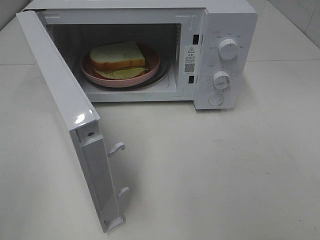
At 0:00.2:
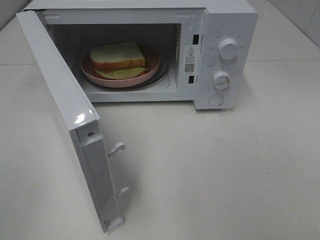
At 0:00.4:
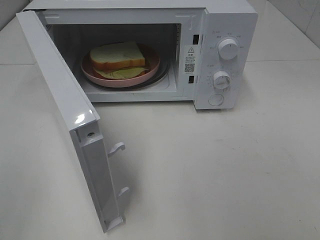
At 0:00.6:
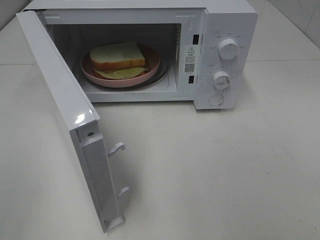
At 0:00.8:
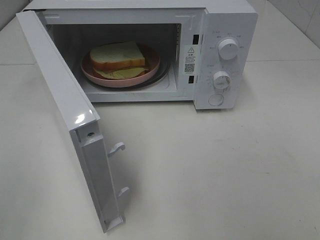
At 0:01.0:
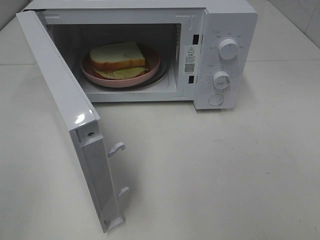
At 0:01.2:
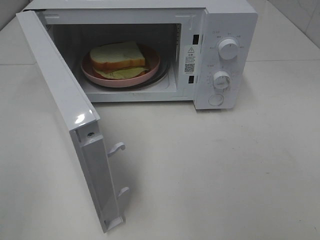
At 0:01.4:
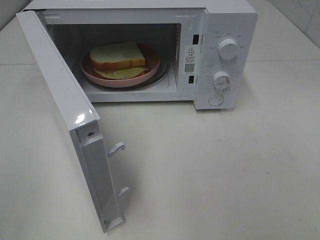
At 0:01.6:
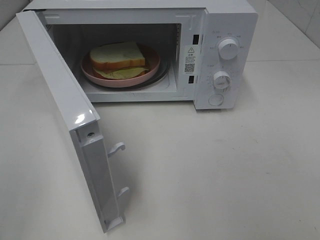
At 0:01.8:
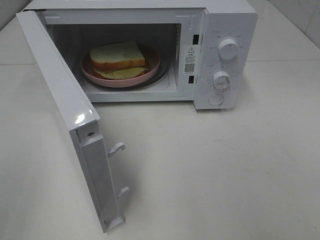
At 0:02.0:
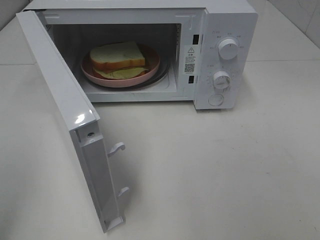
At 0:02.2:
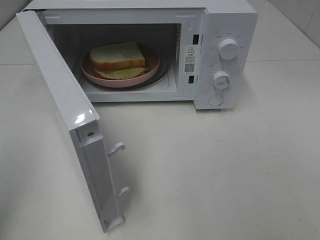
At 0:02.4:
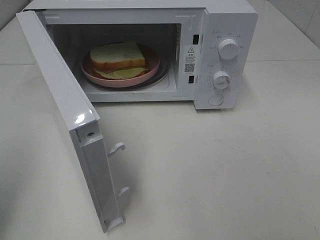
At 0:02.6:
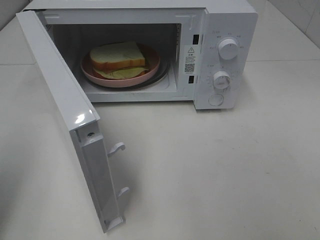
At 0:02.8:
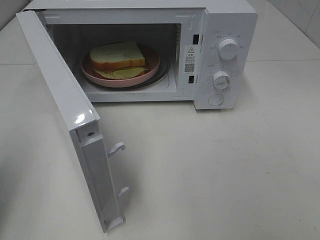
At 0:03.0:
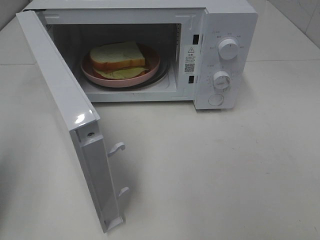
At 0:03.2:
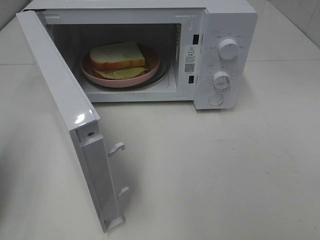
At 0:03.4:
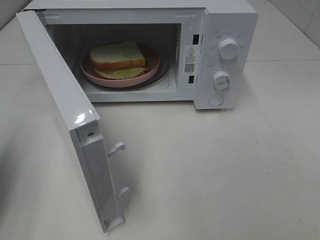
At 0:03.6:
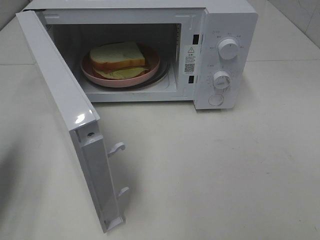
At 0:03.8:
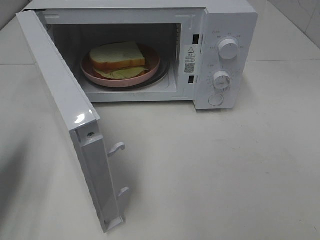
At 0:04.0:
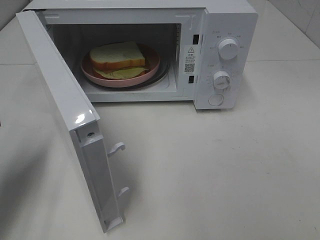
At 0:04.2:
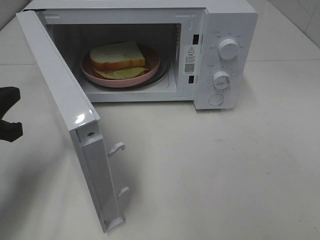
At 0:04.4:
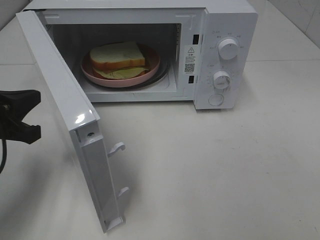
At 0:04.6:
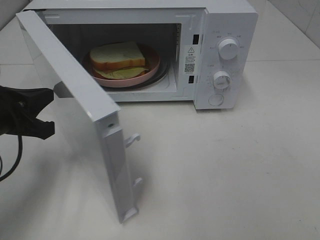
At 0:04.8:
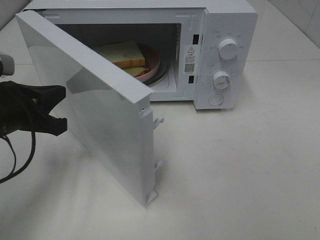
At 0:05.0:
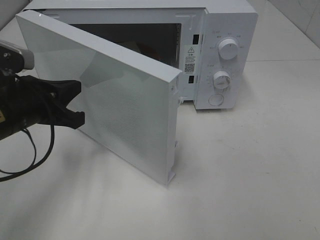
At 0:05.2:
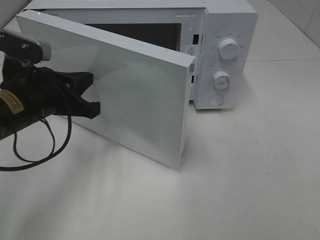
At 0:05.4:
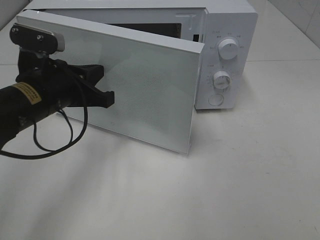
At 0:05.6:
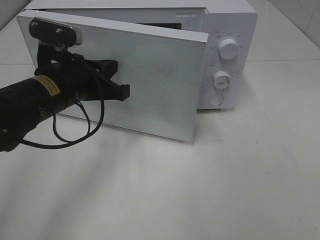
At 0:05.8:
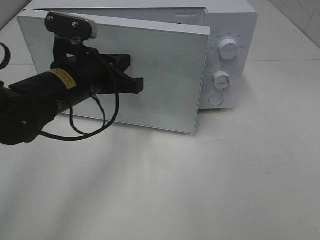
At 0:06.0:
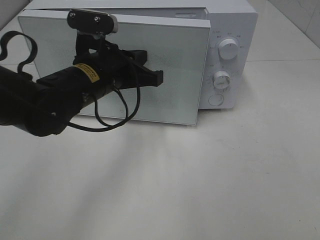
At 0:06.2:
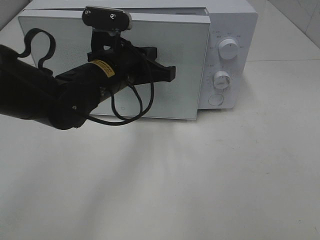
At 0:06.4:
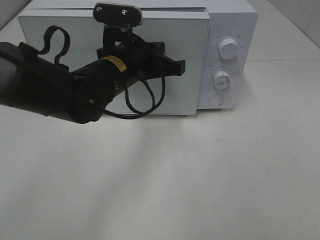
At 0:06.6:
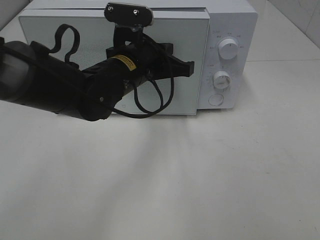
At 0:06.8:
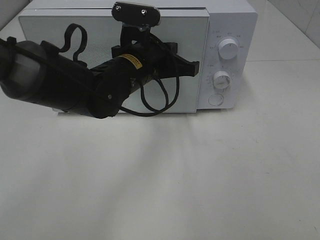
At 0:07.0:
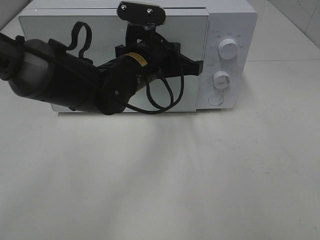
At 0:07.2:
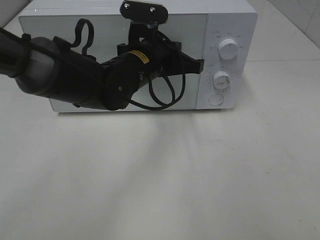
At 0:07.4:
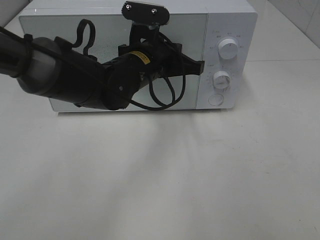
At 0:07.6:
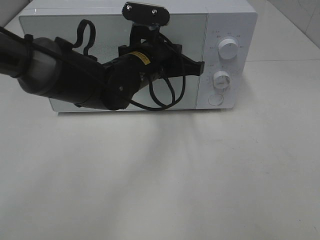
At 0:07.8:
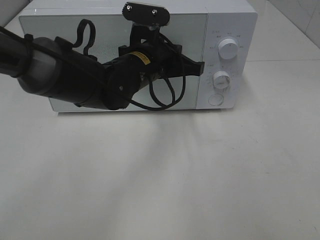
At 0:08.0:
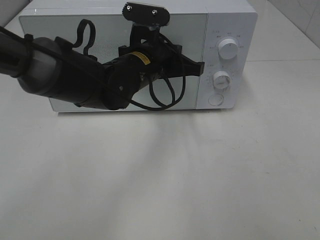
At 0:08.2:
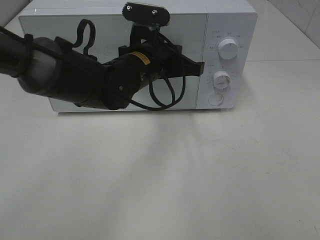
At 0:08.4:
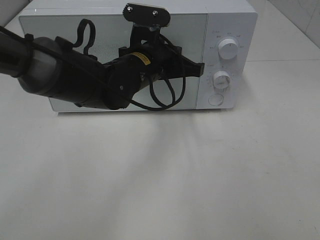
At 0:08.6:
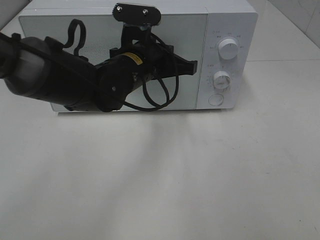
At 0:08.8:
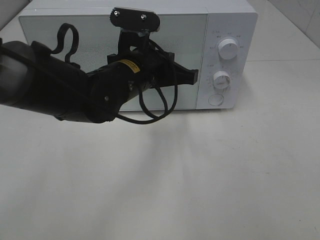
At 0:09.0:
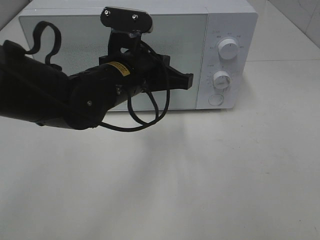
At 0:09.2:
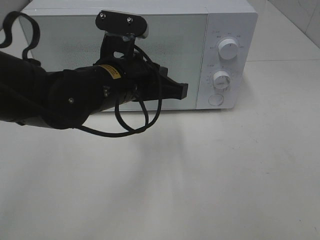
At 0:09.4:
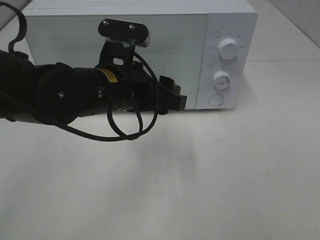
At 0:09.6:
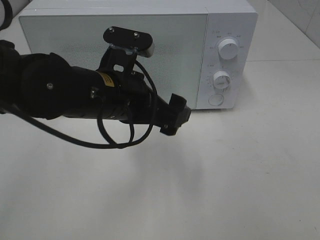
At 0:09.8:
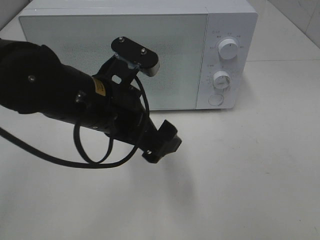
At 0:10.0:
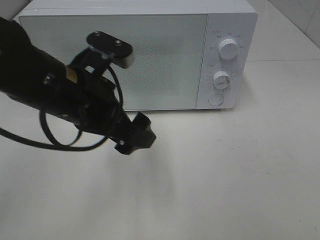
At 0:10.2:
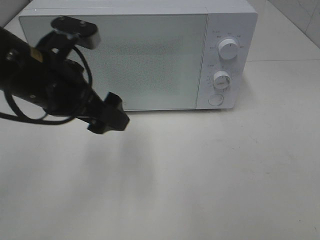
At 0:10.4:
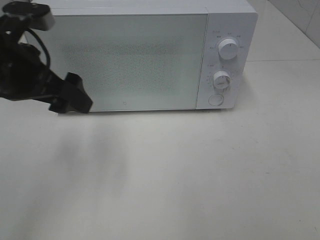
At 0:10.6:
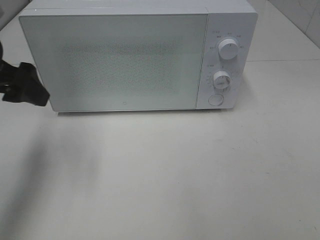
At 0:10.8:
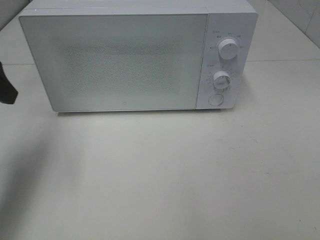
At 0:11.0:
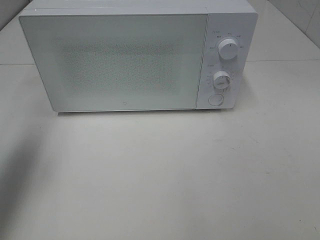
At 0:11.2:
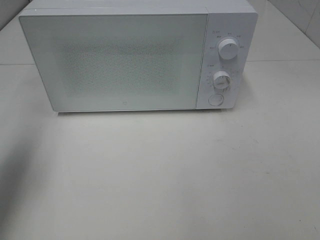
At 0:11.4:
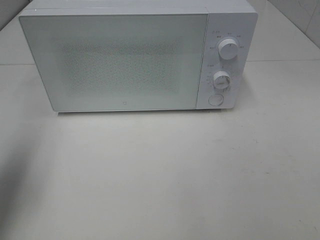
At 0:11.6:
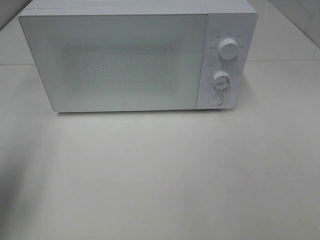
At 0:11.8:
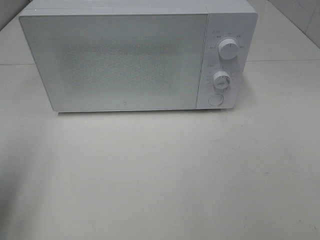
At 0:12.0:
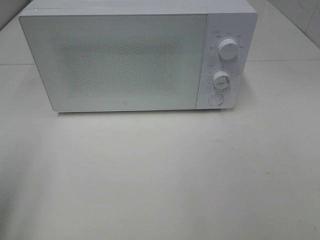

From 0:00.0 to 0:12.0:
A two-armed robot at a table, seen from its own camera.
Task of the whole recording: Heat Sandwich.
Step, from 0:00.0 to 0:09.0: Left hand: close the microwave door.
From 0:00.0 to 0:01.6: The two grippers keep their place.
From 0:01.6 to 0:03.0: The left gripper shifts some 15 cm forward, and closes up.
From 0:03.0 to 0:04.4: The left gripper travels forward, to the right and downward by some 15 cm.
From 0:04.4 to 0:06.0: The left gripper travels to the right and forward by roughly 20 cm.
From 0:06.0 to 0:07.6: The left gripper heads to the right, covering approximately 5 cm.
From 0:07.6 to 0:09.0: The left gripper heads backward, covering roughly 5 cm.
From 0:09.0 to 0:10.4: The left gripper is displaced to the left and upward by roughly 15 cm, and opens.
From 0:10.4 to 0:12.0: The left gripper goes some 20 cm backward and to the left.

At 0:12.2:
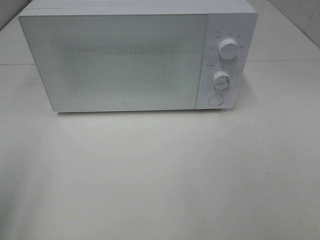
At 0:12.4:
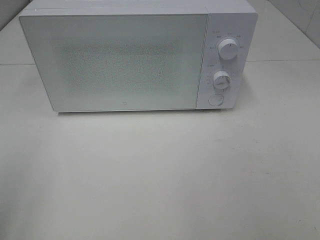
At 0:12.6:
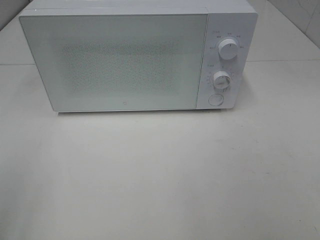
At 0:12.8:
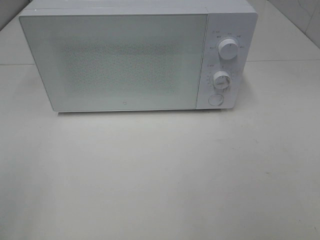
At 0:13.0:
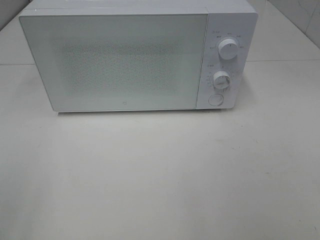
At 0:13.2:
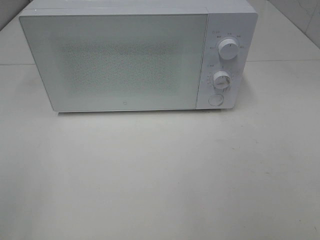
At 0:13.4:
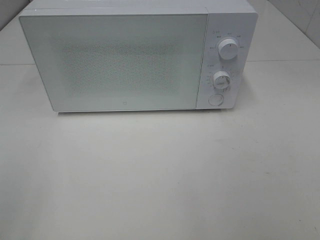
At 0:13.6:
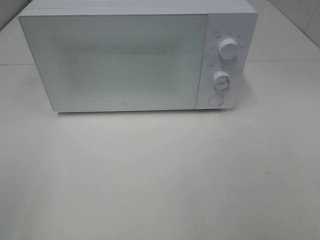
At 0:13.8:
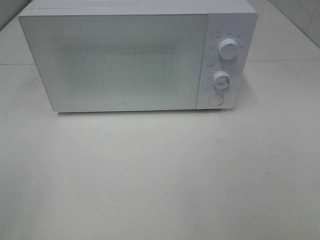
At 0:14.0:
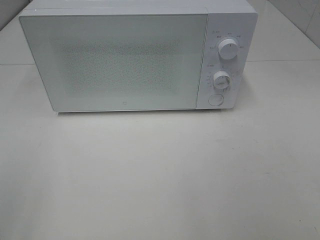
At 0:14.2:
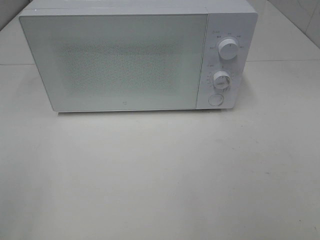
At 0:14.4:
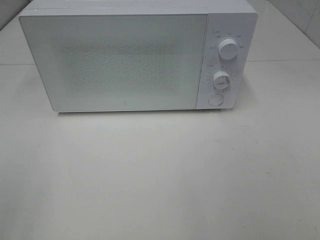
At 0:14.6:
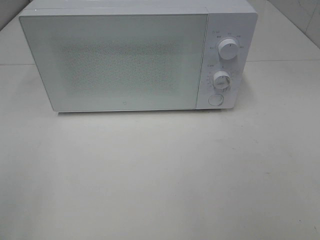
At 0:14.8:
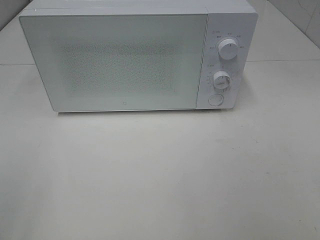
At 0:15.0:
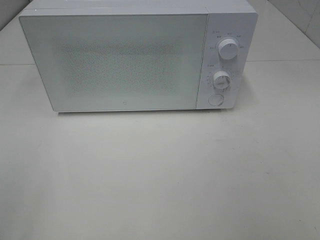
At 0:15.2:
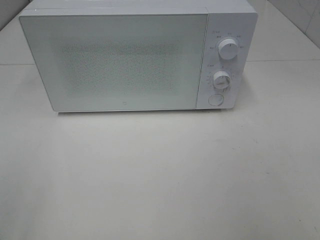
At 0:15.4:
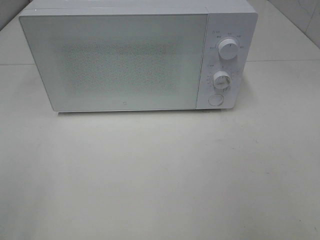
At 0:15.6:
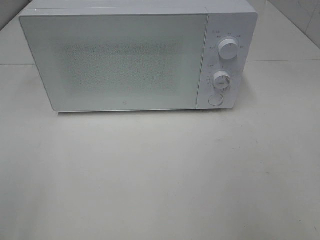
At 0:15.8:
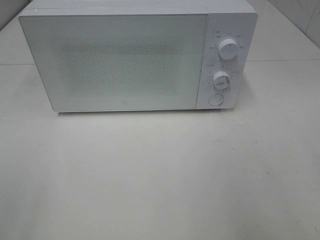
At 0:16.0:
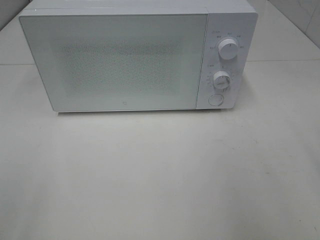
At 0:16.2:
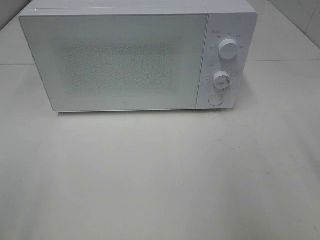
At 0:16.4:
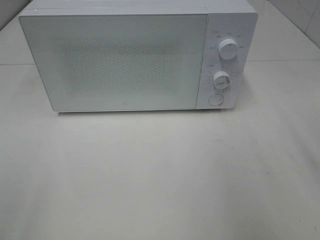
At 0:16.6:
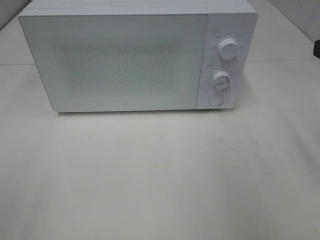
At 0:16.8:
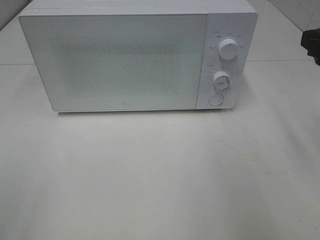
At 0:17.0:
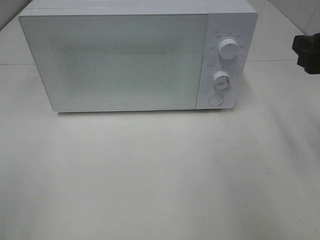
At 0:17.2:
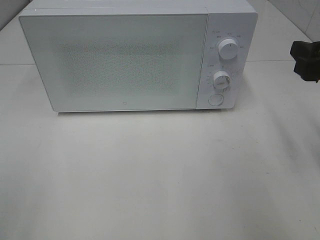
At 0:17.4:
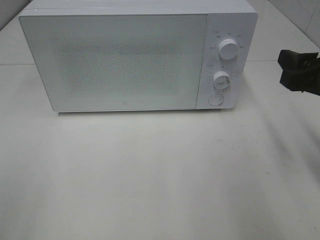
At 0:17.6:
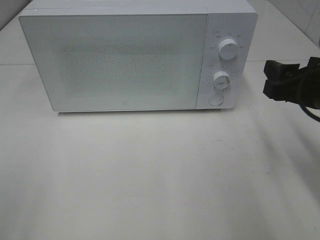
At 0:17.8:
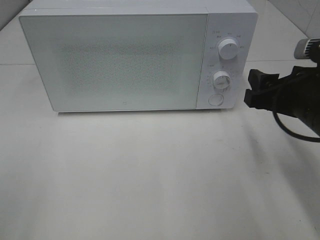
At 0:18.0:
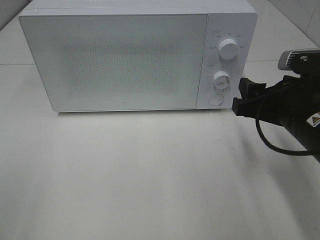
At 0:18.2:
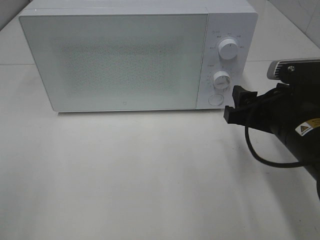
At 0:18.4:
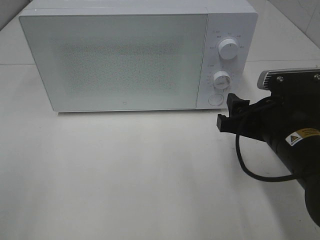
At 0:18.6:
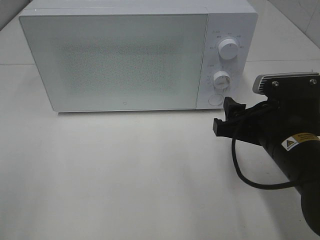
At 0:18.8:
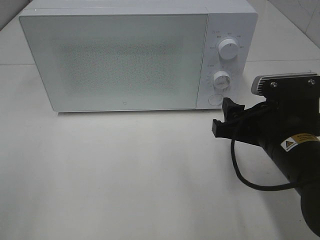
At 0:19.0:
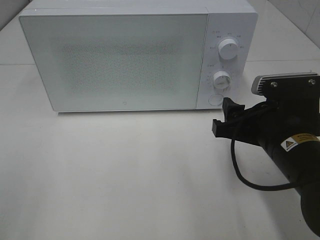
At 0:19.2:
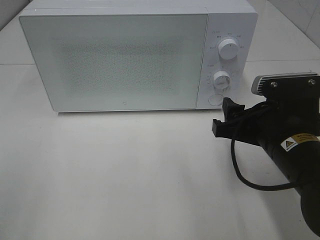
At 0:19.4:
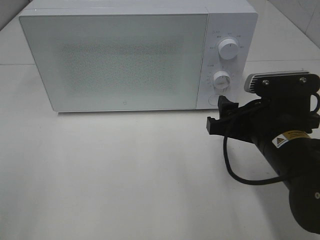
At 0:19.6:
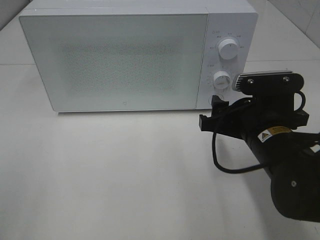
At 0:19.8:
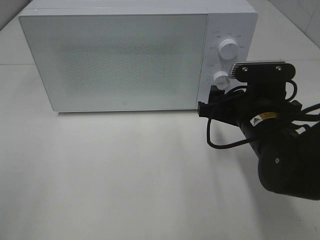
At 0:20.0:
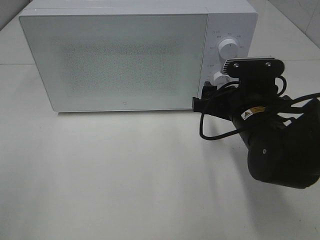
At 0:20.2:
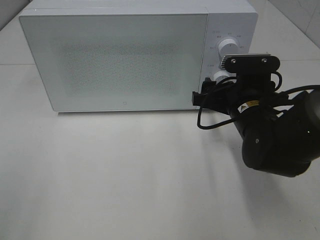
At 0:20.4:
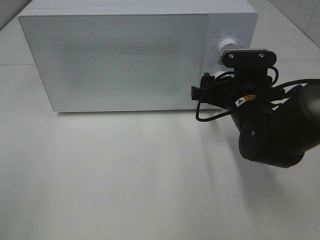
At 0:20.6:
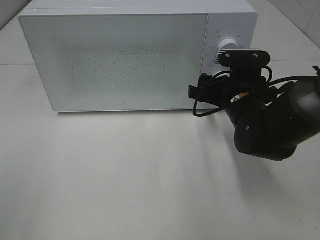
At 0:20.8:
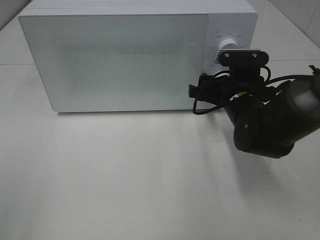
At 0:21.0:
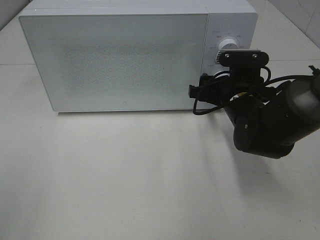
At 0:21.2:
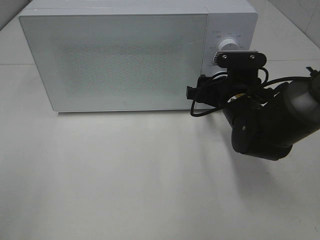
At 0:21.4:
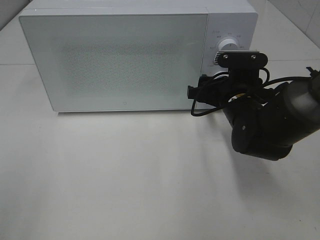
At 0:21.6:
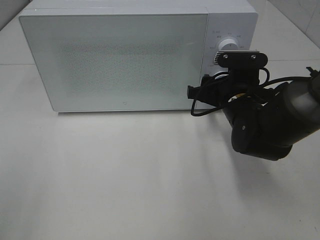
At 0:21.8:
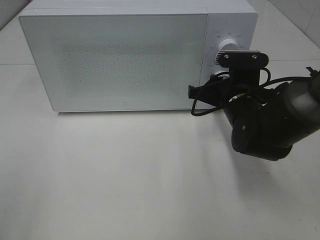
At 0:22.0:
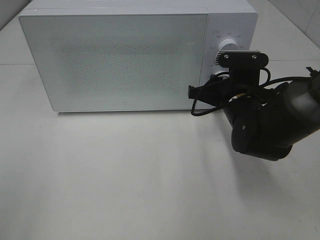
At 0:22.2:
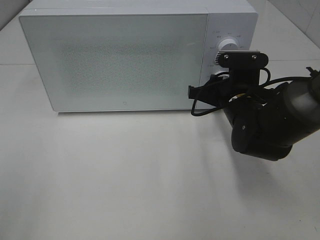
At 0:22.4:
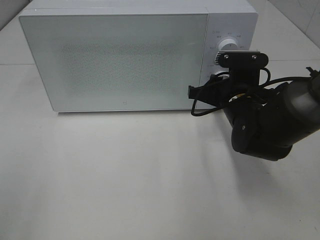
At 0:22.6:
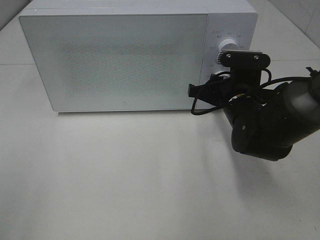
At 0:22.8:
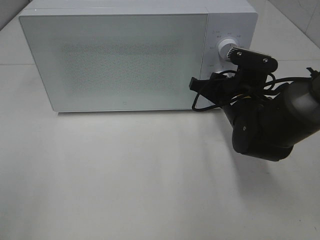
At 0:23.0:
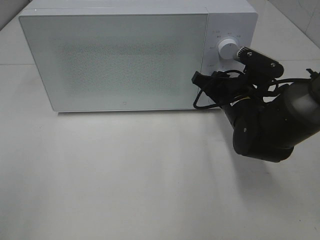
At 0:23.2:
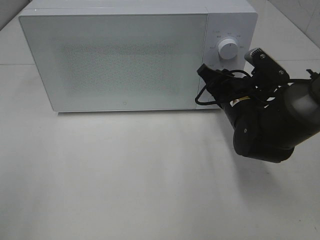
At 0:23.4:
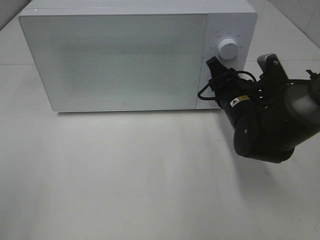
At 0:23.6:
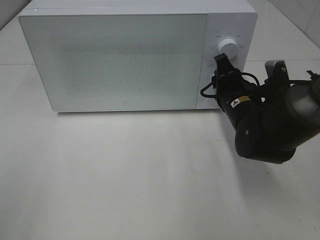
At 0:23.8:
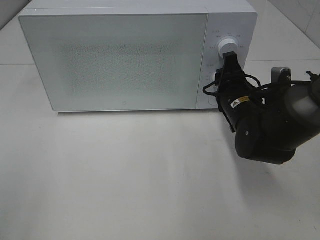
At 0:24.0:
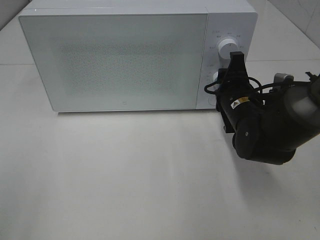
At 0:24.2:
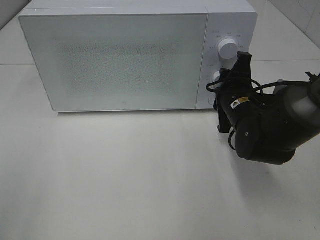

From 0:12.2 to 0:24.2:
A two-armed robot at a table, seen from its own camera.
Task of the whole recording: Heat Sandwich.
From 0:16.6 to 0:18.2: The right gripper goes approximately 15 cm downward and to the left.
From 0:18.2 to 0:19.8: The right gripper shifts by about 5 cm.
From 0:19.8 to 0:21.2: The right gripper moves forward, some 5 cm.
From 0:21.2 to 0:22.6: The right gripper closes its fingers.
